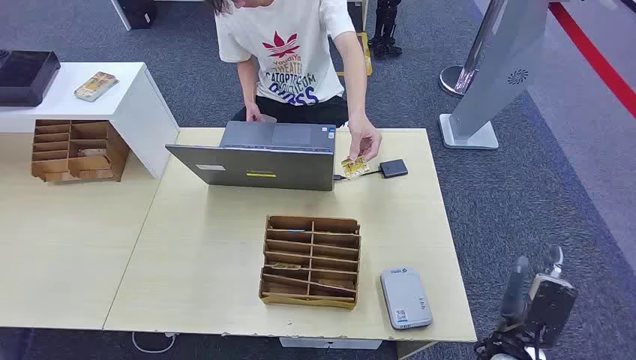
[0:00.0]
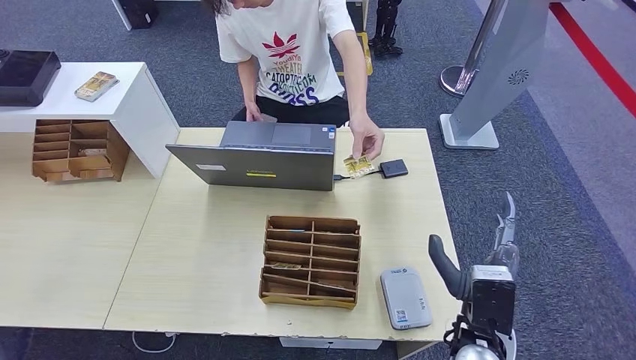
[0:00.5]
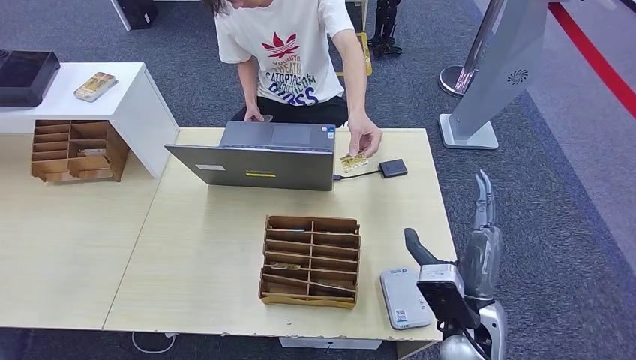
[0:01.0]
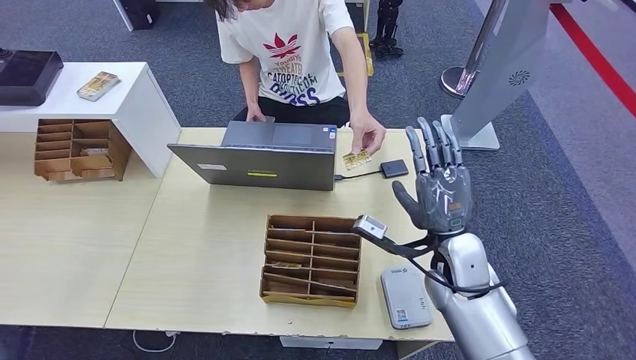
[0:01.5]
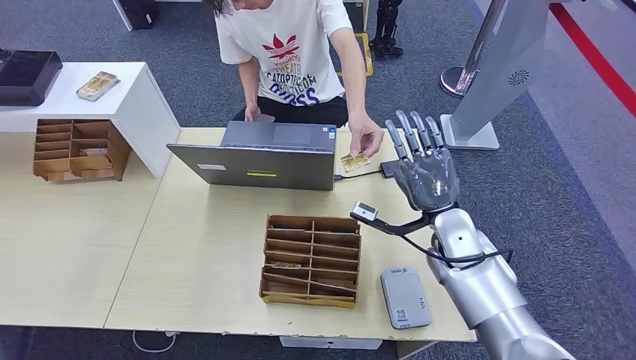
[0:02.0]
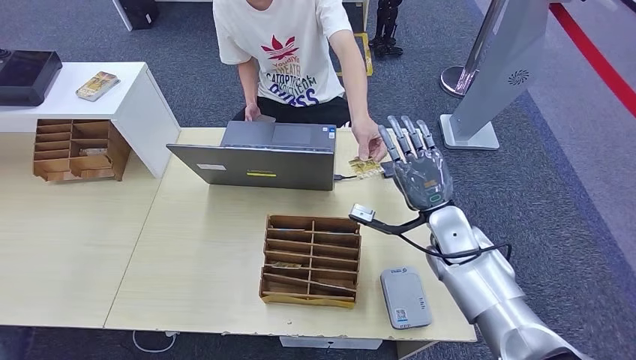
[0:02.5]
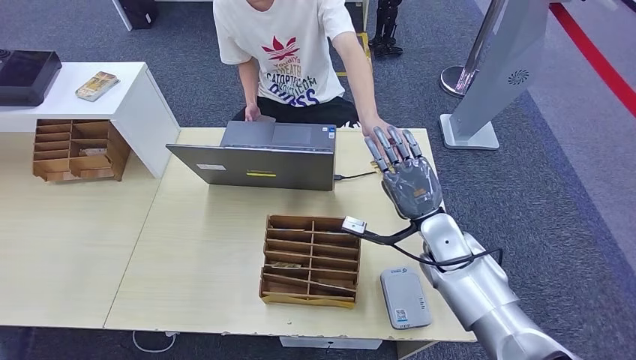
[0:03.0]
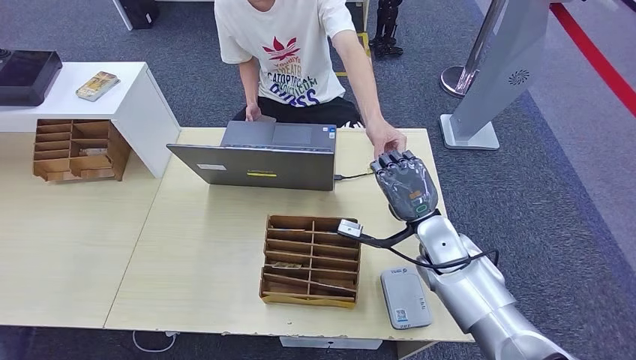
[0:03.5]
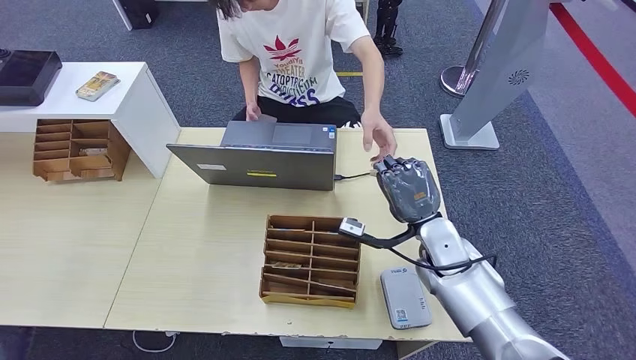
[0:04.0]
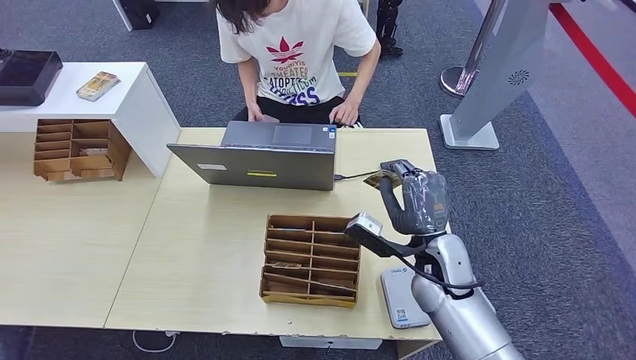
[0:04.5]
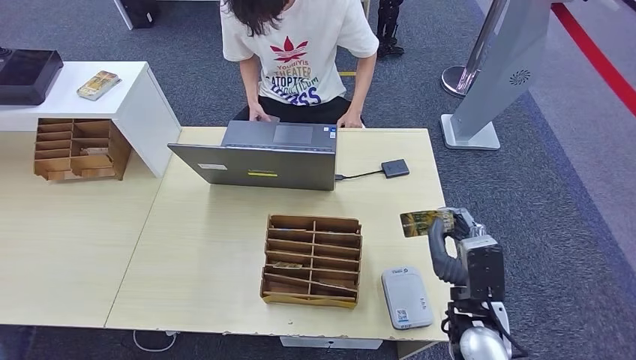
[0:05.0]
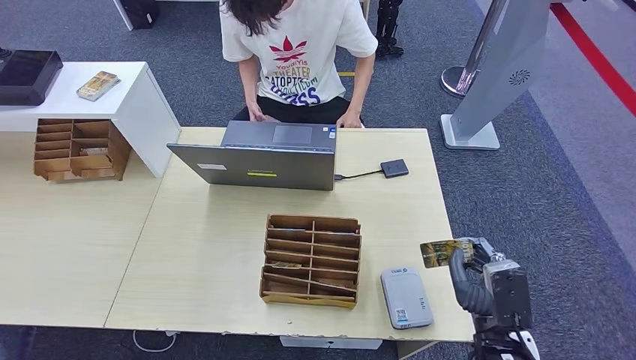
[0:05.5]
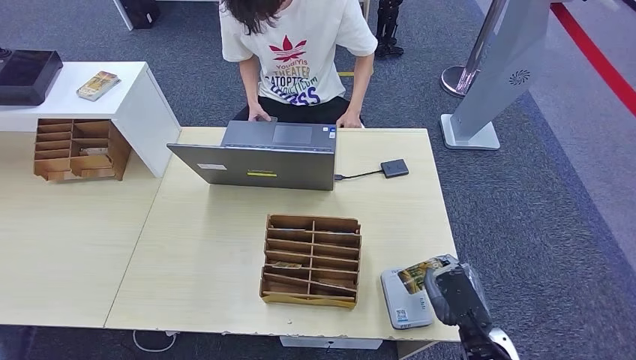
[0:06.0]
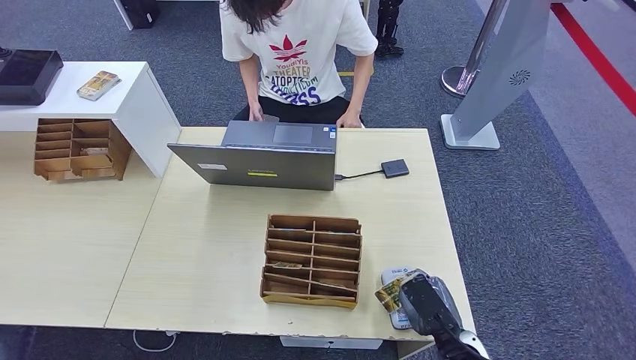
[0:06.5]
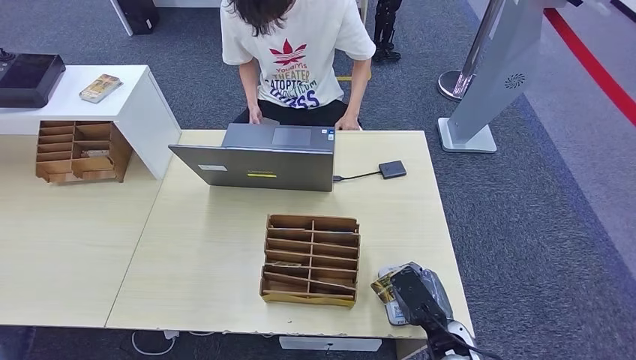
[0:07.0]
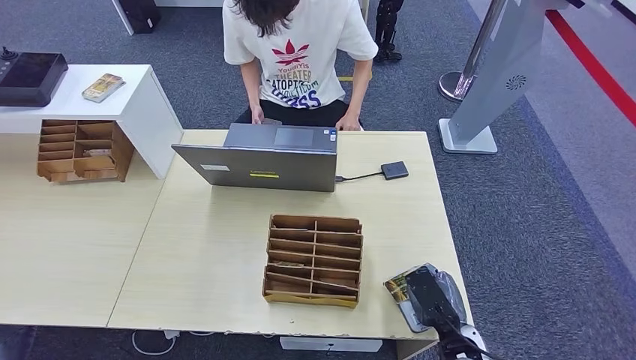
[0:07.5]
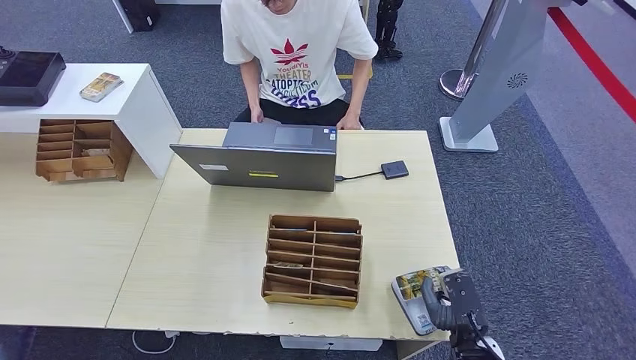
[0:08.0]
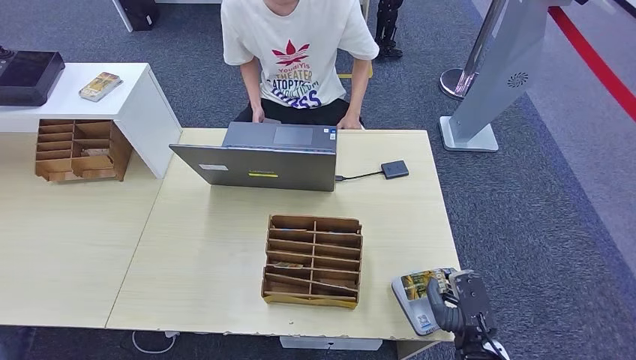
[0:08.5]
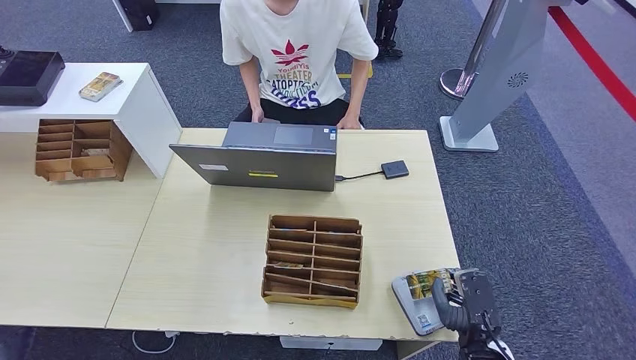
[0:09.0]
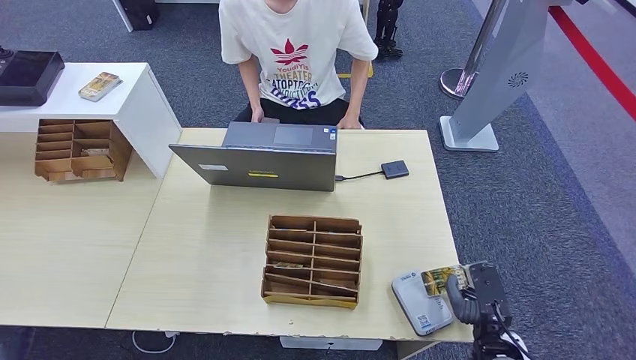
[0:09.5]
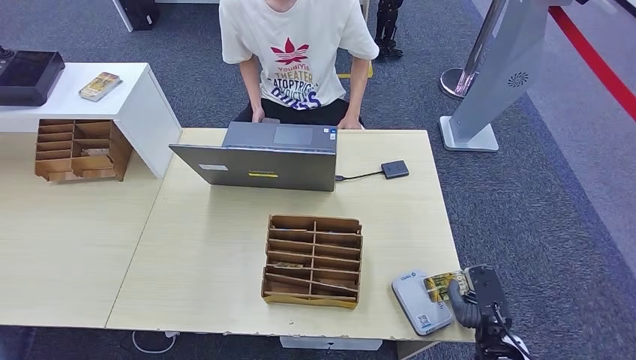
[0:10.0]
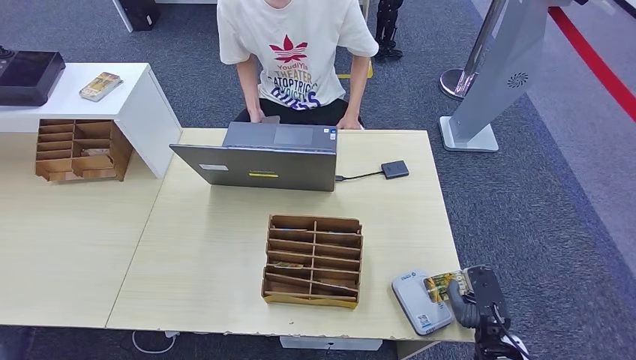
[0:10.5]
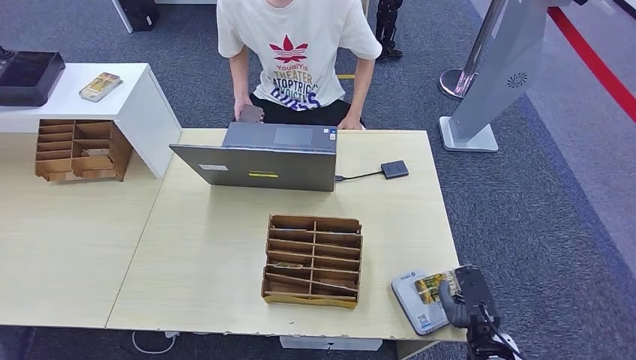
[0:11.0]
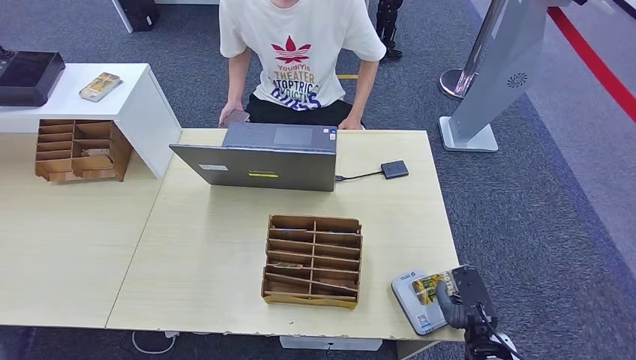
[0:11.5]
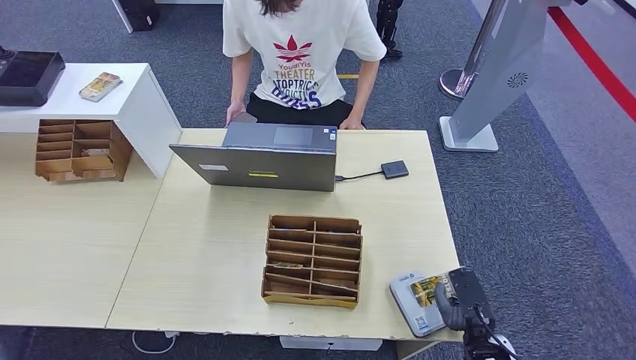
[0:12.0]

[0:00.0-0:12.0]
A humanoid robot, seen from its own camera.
Step, 0:00.0 to 0:03.0: Take the ID card from the person's hand.
Step, 0:04.0 to 0:07.5: Place the ID card on the card reader.
0:02.0 to 0:04.0: The hands stay close to where they were, moving slightly.
0:04.0 to 0:06.0: The right hand goes some 20 cm backward.
0:08.0 to 0:10.0: The right hand shifts some 5 cm to the right.
0:10.0 to 0:12.0: There are only small adjustments of the hands.

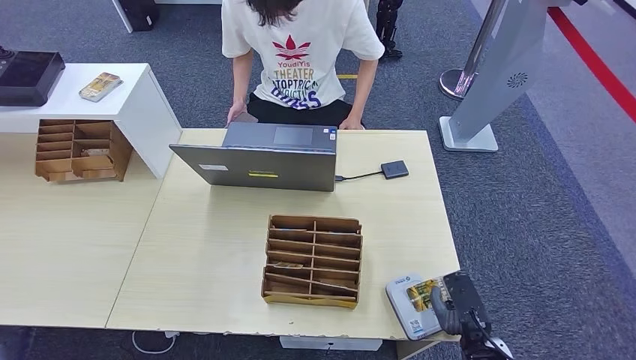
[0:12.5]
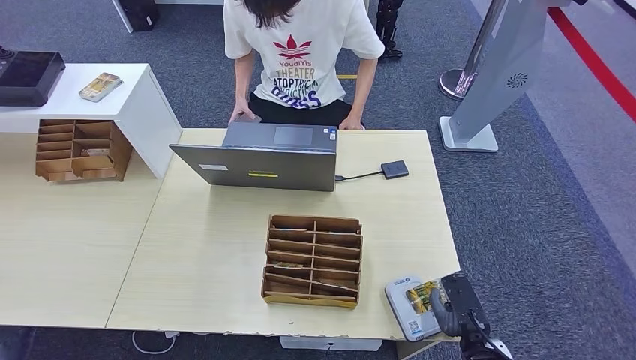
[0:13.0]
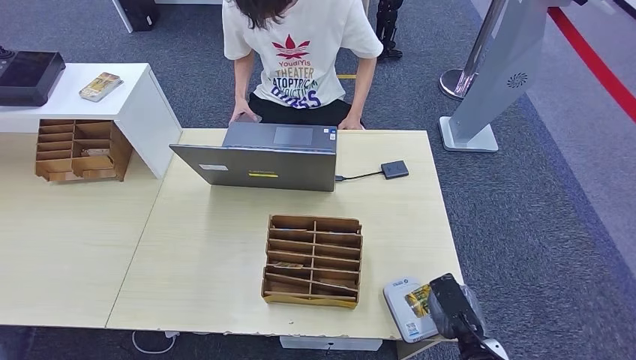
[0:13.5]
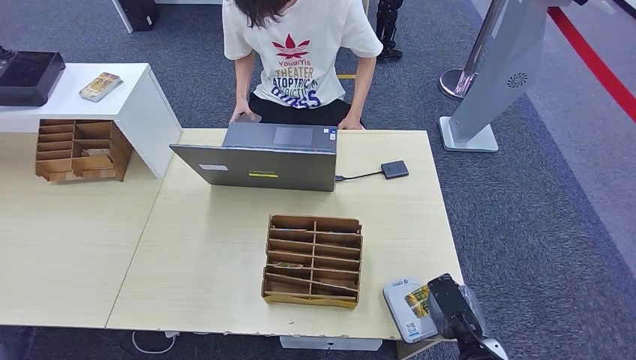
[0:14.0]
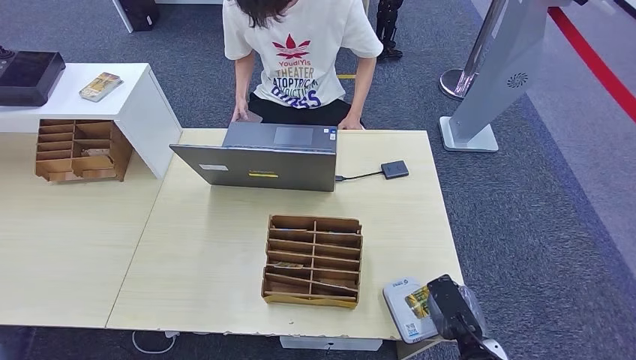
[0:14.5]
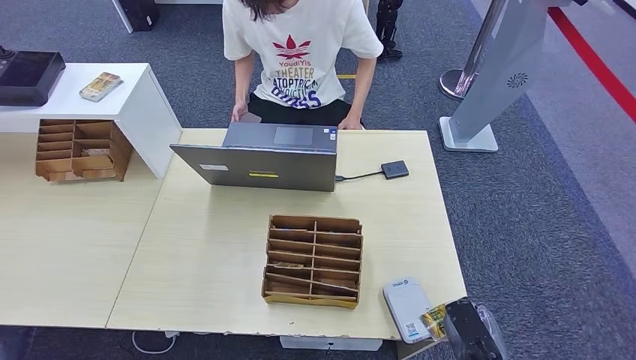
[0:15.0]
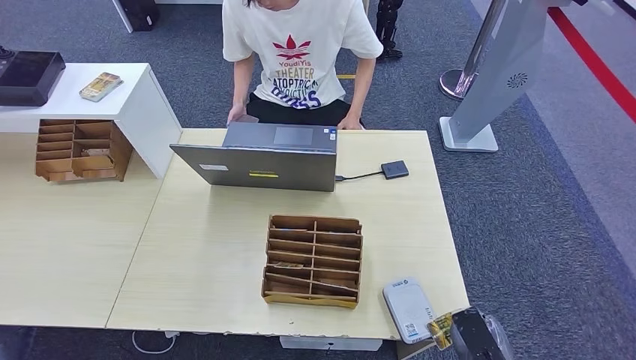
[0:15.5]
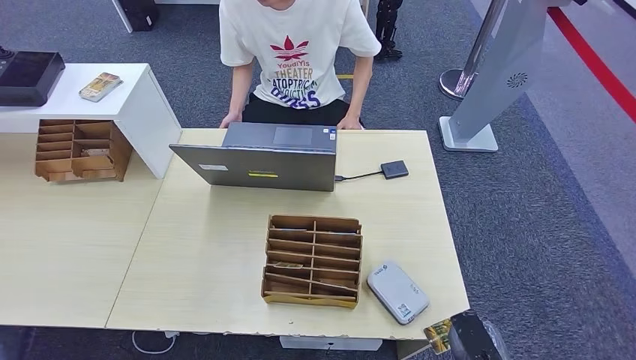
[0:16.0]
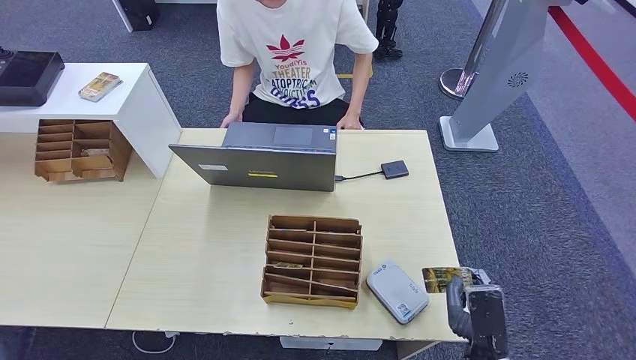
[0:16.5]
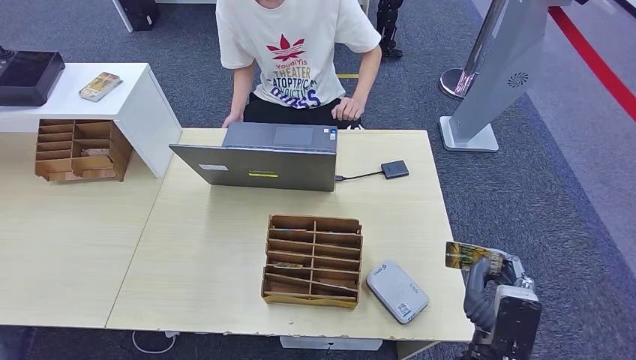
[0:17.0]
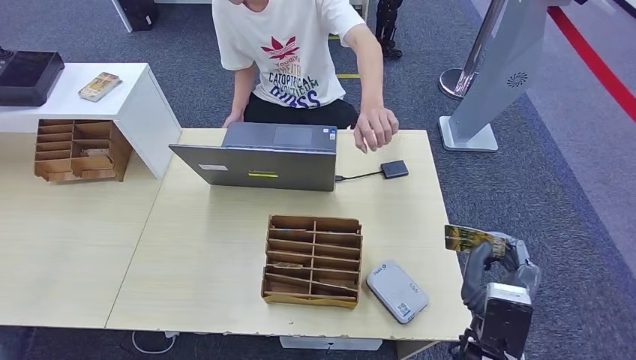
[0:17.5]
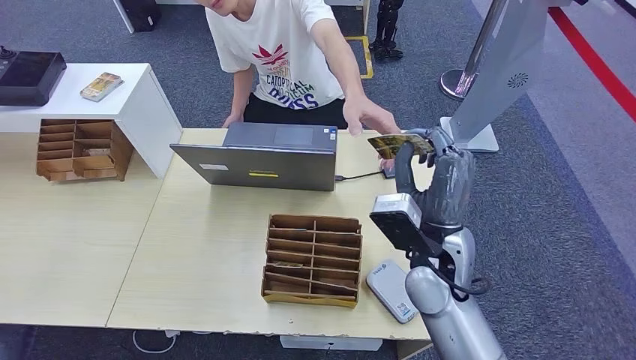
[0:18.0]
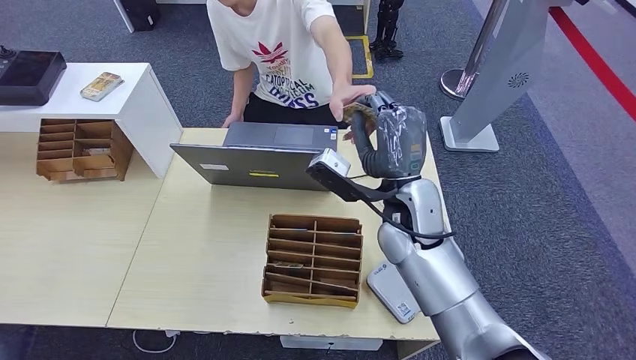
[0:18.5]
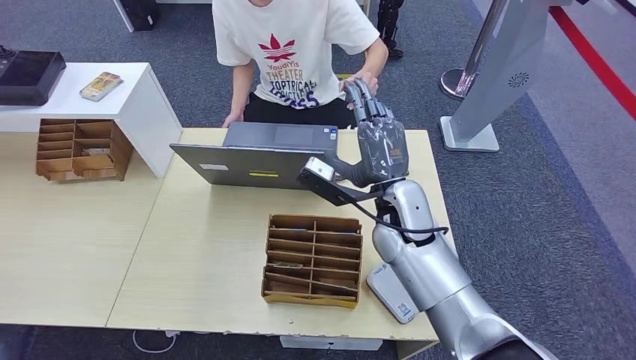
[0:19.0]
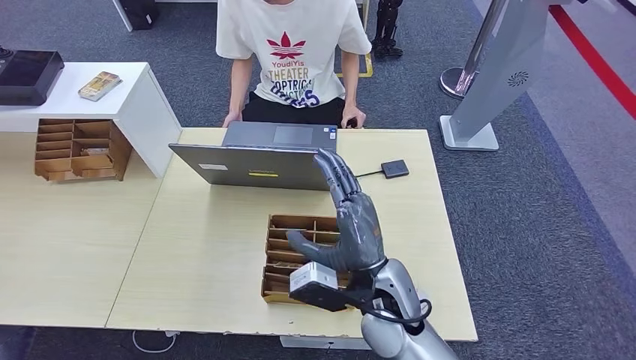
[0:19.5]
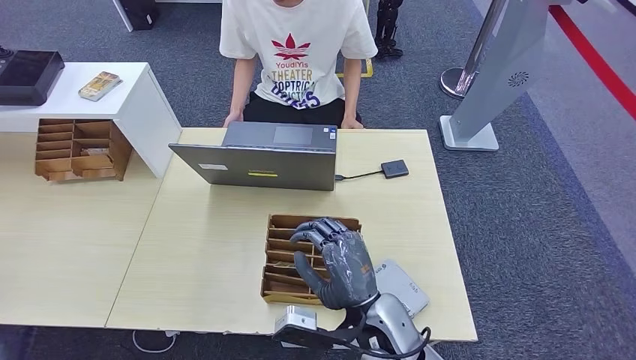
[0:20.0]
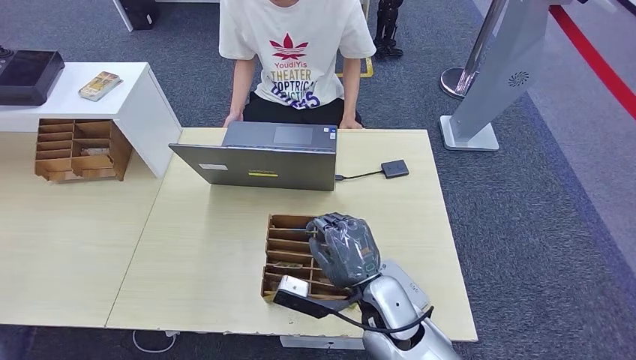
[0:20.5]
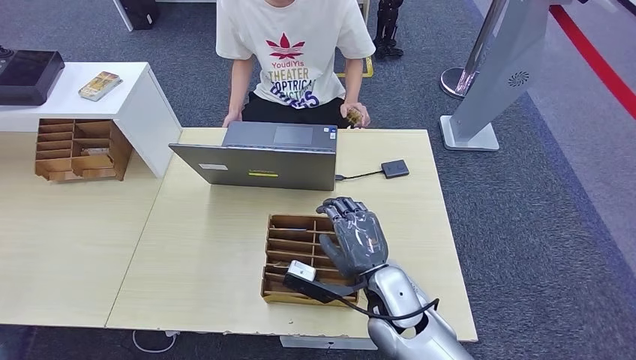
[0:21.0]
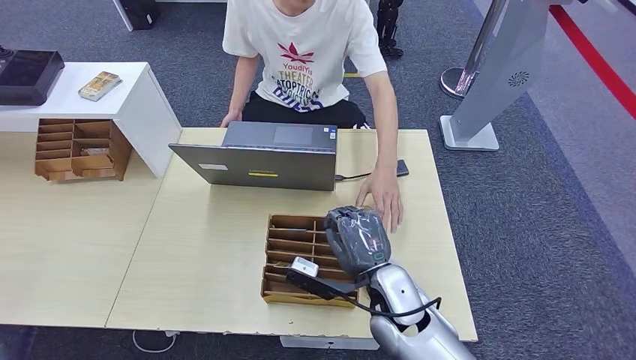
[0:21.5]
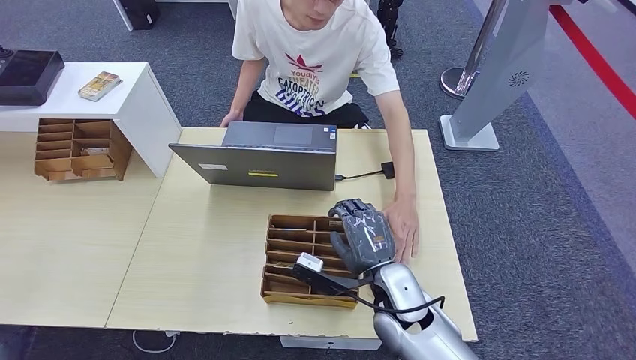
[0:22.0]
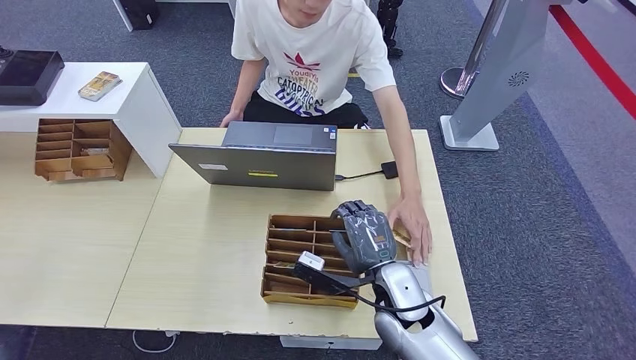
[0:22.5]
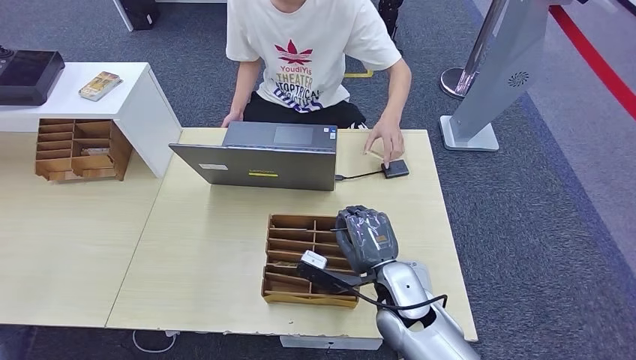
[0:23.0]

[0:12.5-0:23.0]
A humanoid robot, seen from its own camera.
Step, 0:12.5 to 0:19.5: Hand the ID card to the person.
Step, 0:20.0 to 0:22.5: Pick up the room key from the key card box.
0:12.5 to 0:14.5: The hands move only a little.
0:16.5 to 0:19.0: The right hand heads forward, upward and to the left, covering about 30 cm.
0:19.0 to 0:21.0: The right hand shifts approximately 15 cm backward and downward.
0:21.0 to 0:23.0: The hands move only a little.
